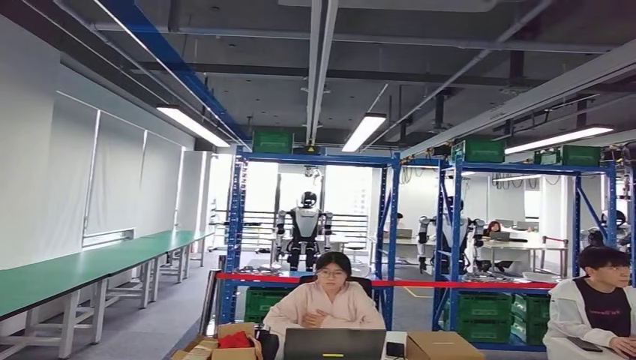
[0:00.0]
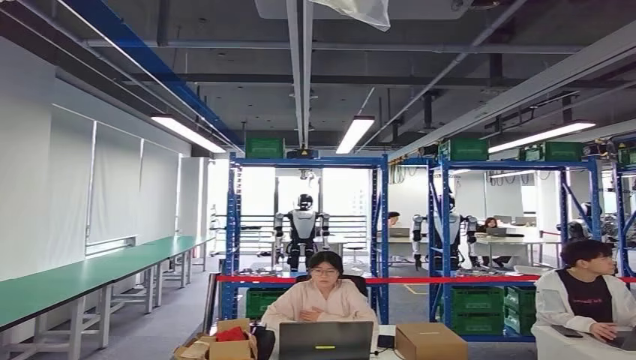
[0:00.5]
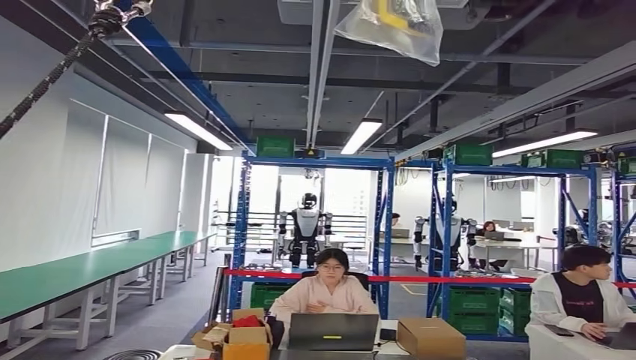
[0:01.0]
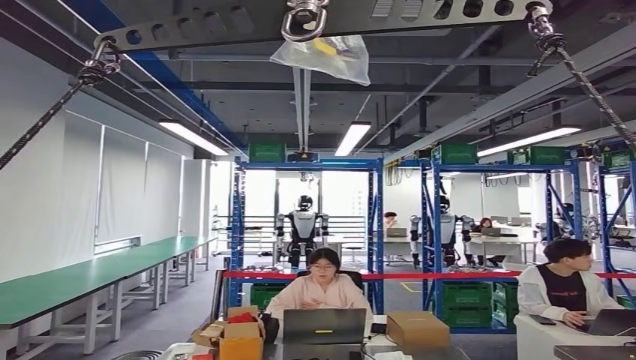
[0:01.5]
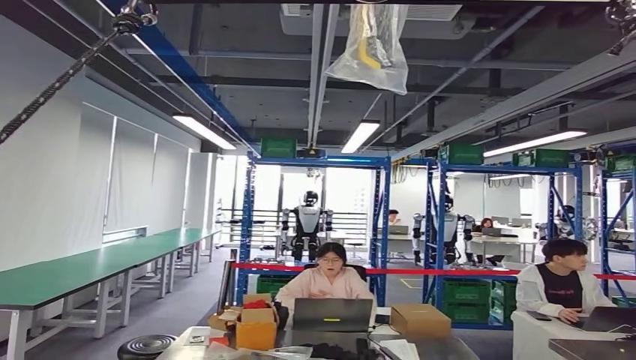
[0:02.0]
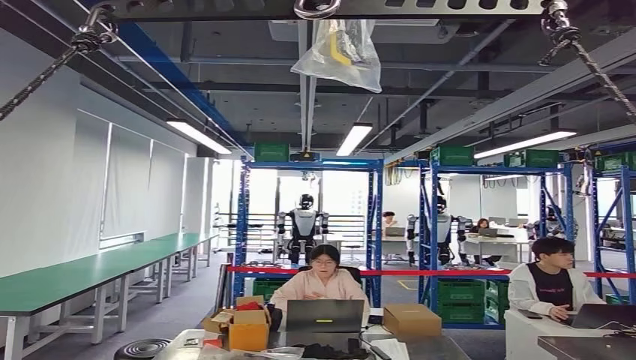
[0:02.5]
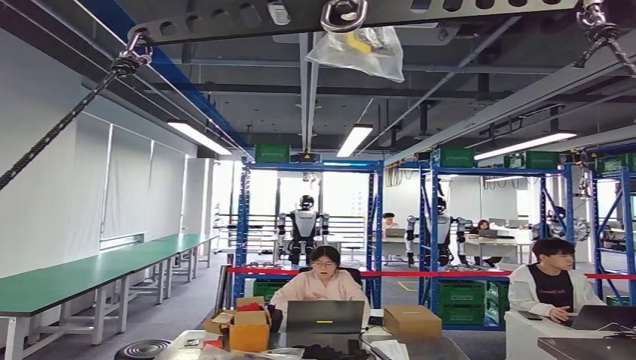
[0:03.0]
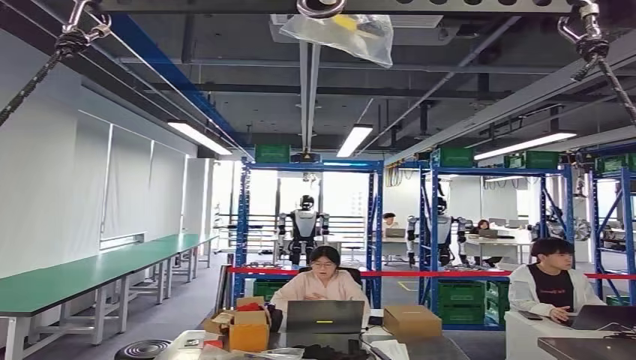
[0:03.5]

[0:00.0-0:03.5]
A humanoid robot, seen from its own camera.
Step, 0:00.0 to 0:03.0: Move to the initial position of the workbench.
